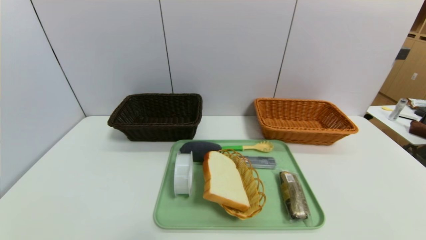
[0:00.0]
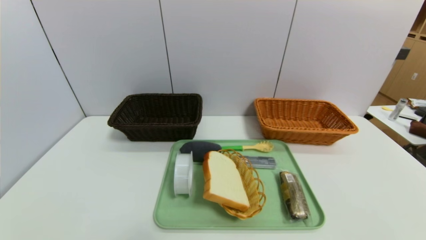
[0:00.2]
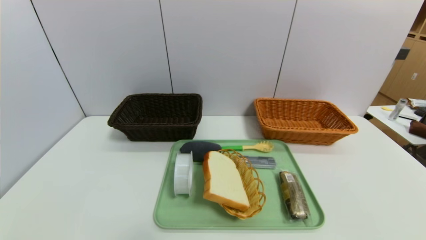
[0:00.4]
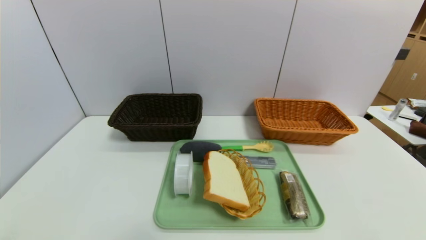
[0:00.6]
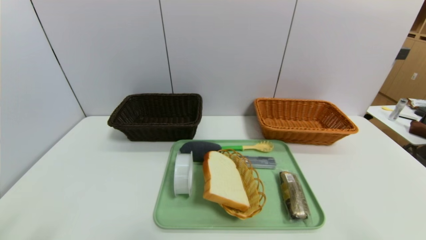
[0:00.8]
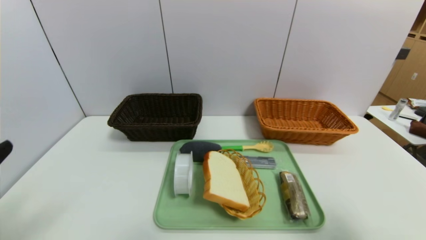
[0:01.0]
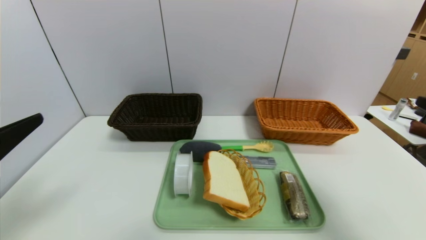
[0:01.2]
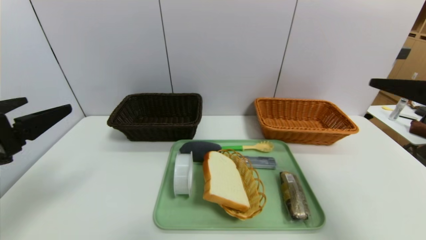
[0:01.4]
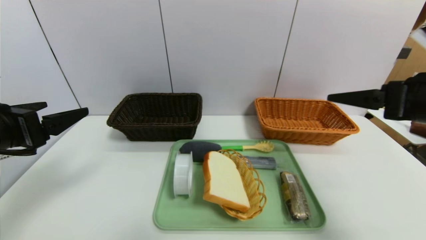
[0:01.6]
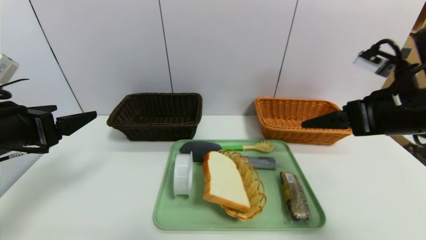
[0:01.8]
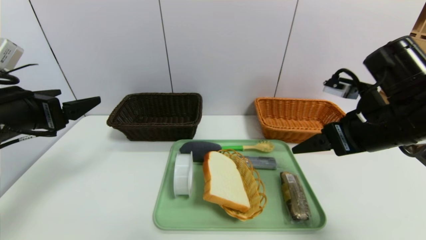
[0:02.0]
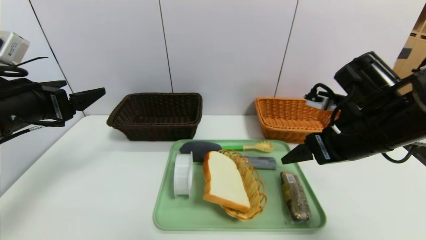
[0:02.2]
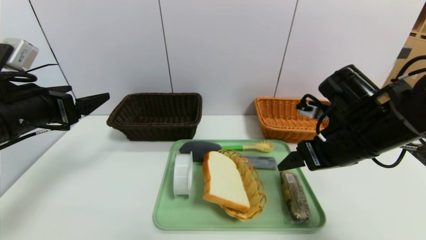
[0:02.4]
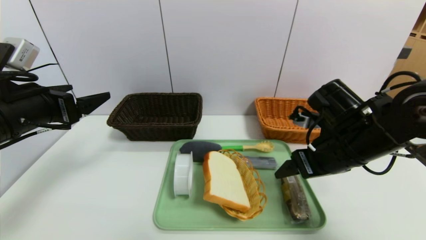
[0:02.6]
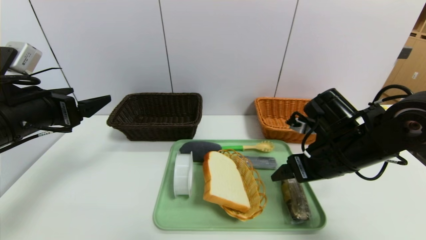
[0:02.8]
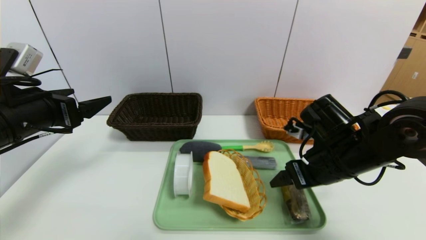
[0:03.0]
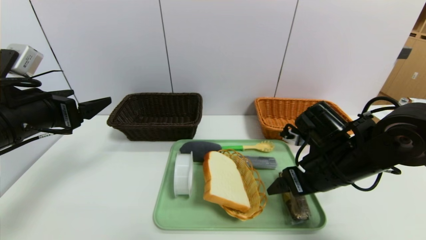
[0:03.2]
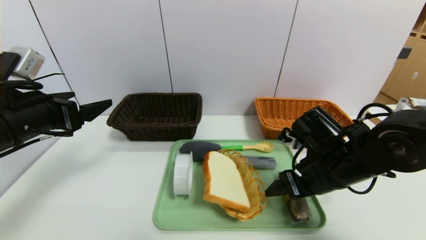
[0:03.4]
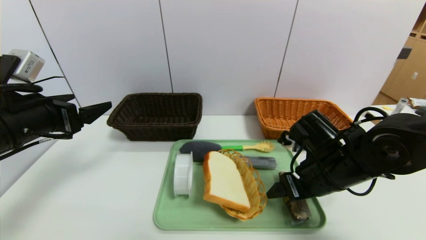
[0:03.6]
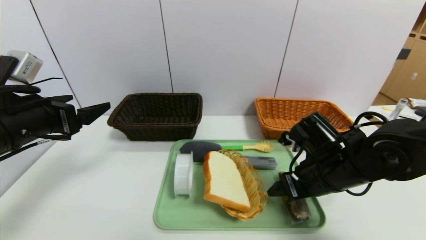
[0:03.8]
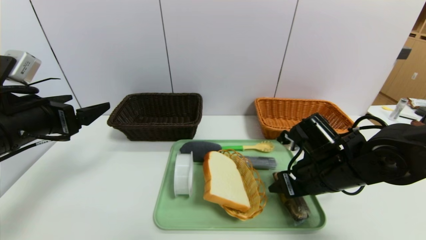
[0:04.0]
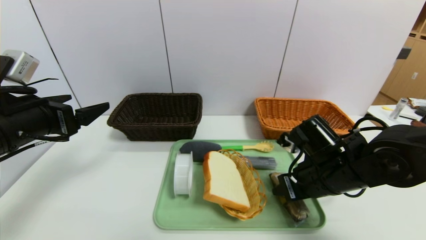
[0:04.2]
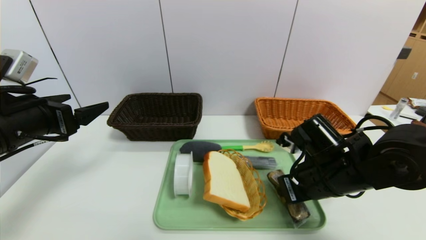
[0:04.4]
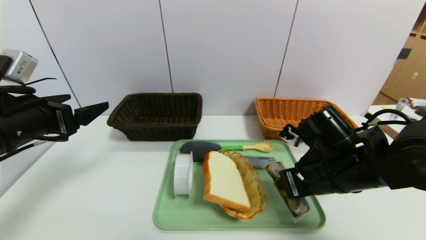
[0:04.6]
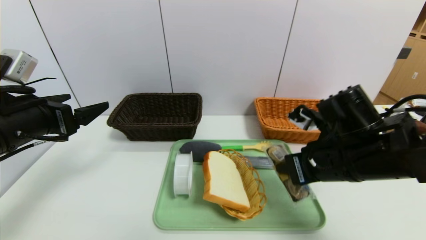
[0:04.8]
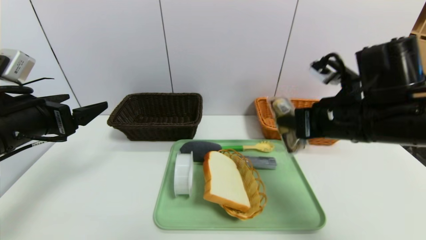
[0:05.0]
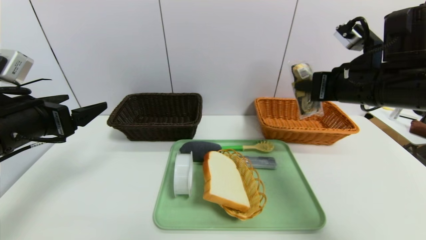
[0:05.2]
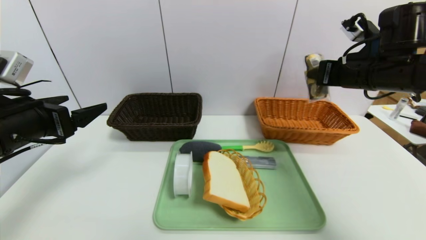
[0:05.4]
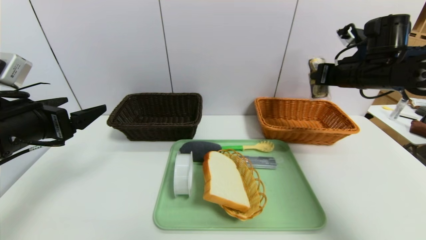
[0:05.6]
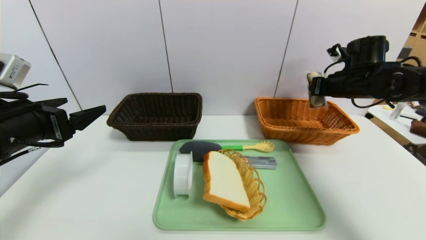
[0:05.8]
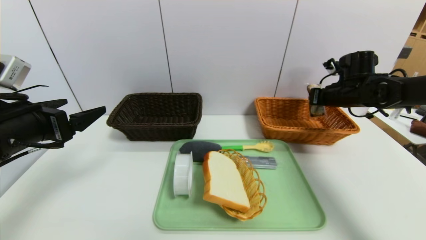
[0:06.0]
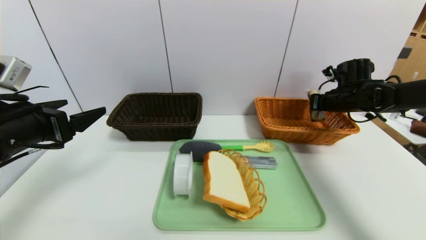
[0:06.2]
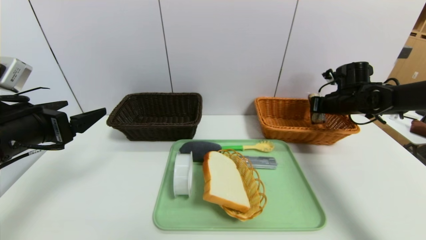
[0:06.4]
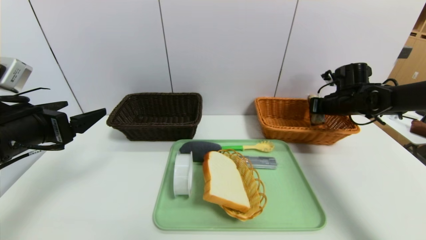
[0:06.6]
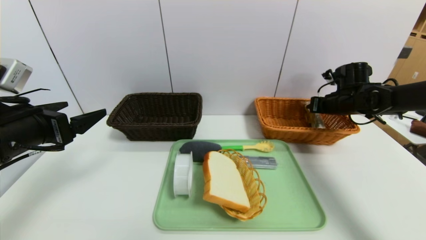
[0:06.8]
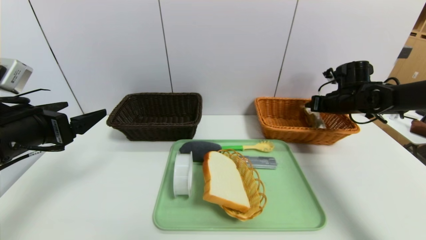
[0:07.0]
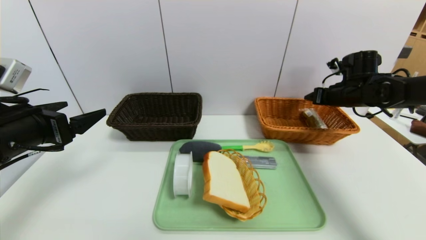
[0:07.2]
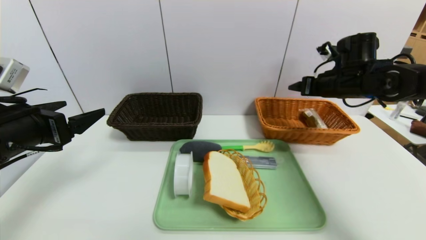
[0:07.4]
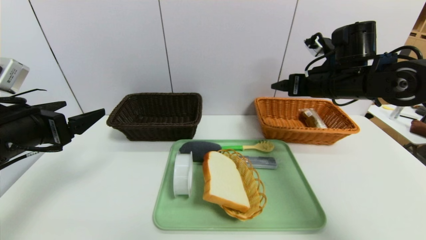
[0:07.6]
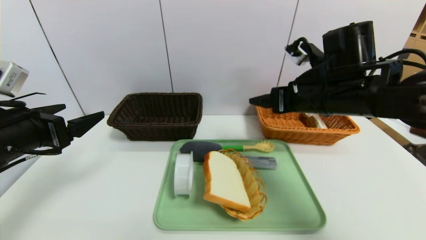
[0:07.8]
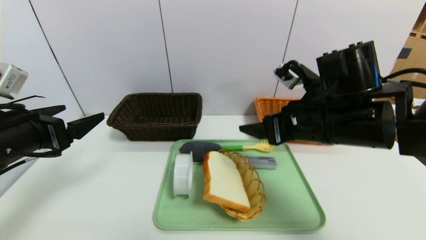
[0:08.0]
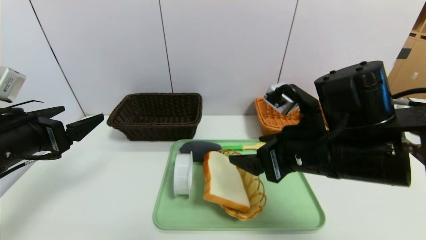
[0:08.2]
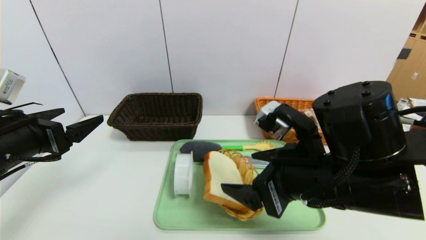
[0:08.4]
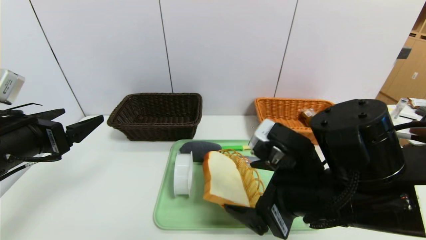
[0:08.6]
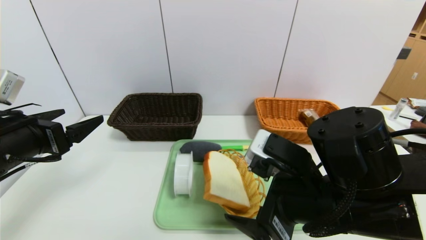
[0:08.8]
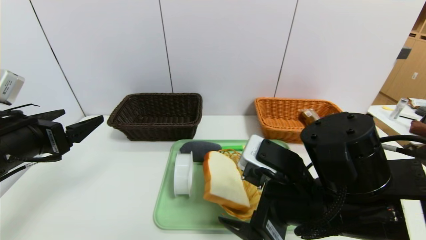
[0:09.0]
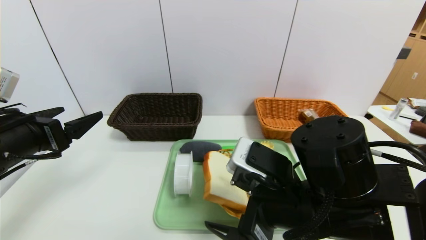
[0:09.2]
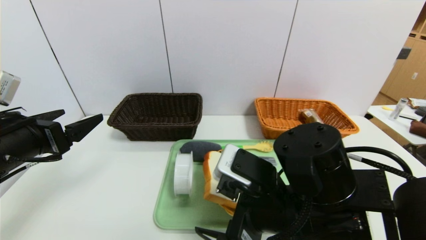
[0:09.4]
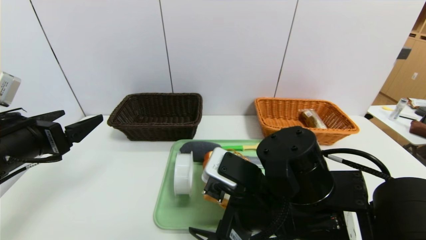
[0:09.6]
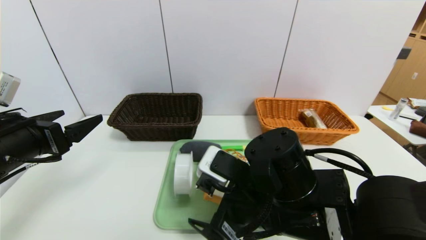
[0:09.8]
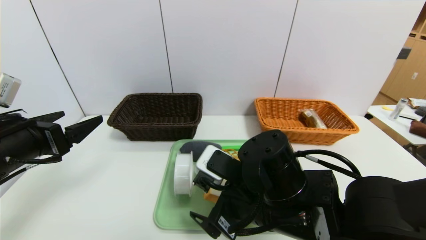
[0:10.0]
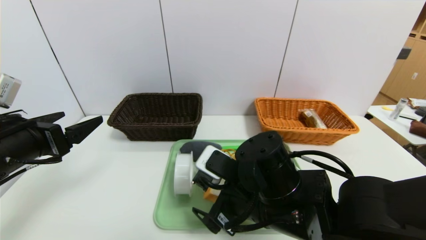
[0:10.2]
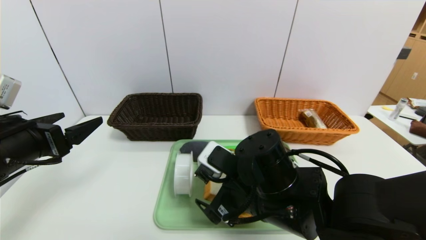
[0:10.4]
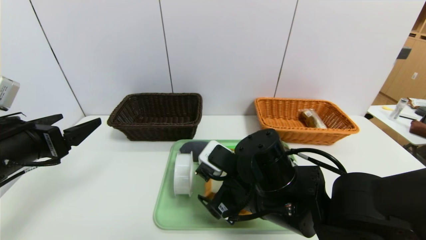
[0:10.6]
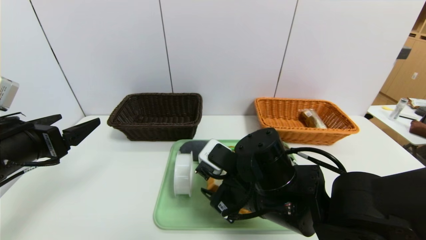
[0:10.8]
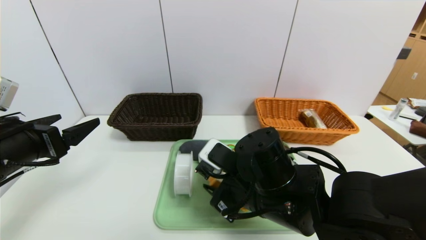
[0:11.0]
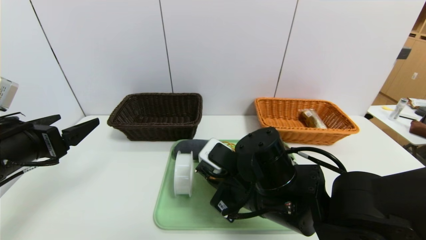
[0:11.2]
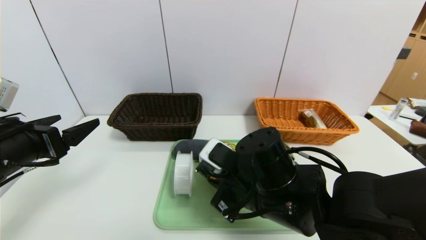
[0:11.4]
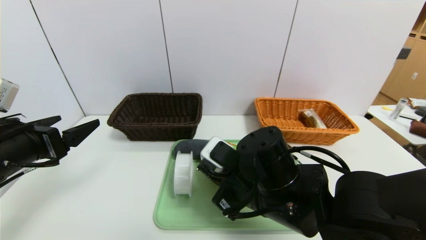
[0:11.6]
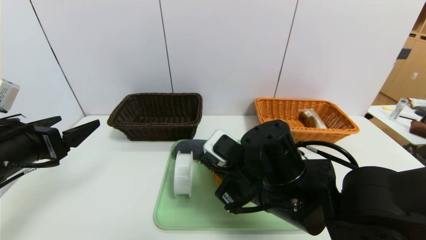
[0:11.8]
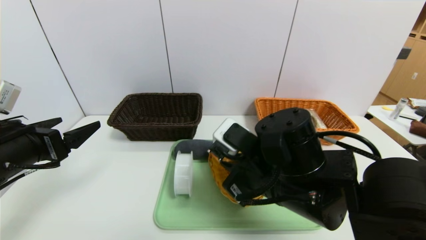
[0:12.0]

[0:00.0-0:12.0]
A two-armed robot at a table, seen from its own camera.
Task of the whole recording: place the food in the right basket with the right gripper, and place the non food items in the left basket with the left gripper.
Step, 0:00.0 to 0:07.0: Grasp the chocolate and put it in the right basket.
0:00.0 to 0:01.6: Both grippers travel together upward and forward, some 30 cm.
0:01.6 to 0:03.0: The left gripper goes roughly 5 cm forward, while the right gripper shifts approximately 15 cm downward, to the left and forward.
0:03.0 to 0:04.4: The right gripper closes.
0:04.4 to 0:06.0: The right gripper goes roughly 25 cm forward and to the right.
0:06.0 to 0:07.6: The right gripper heads to the left, backward and upward, covering some 15 cm, and opens up.
0:07.6 to 0:09.0: The right gripper is displaced backward and to the left by approximately 20 cm.
0:09.0 to 0:10.4: The right gripper shifts about 5 cm to the left.
0:10.4 to 0:12.0: The right gripper closes its fingers.

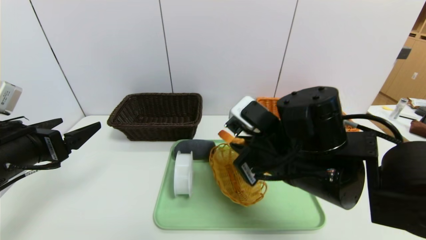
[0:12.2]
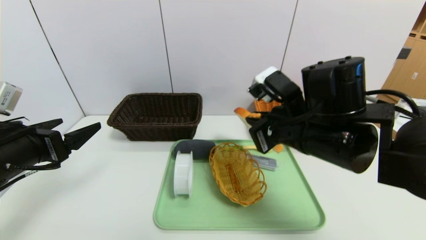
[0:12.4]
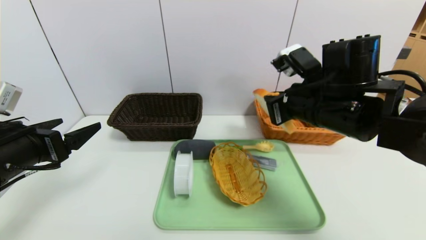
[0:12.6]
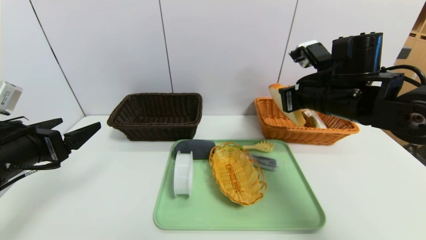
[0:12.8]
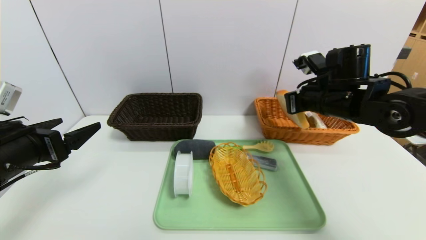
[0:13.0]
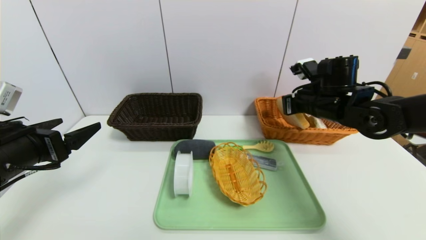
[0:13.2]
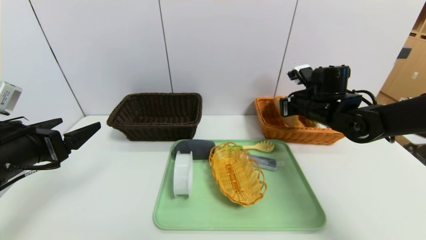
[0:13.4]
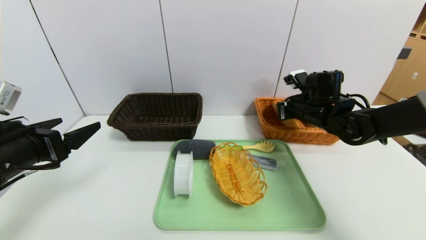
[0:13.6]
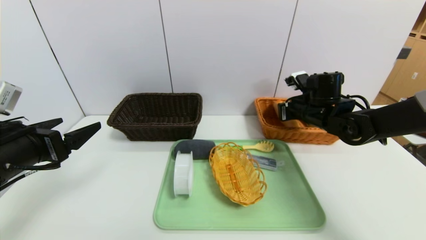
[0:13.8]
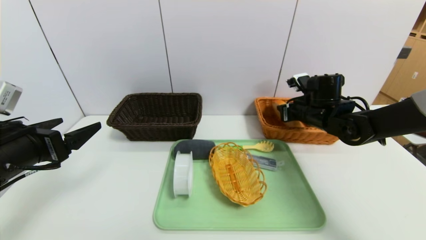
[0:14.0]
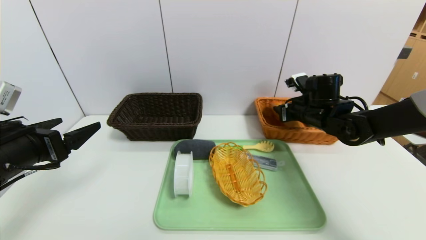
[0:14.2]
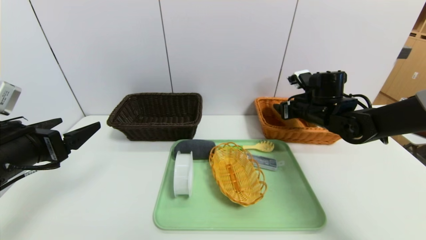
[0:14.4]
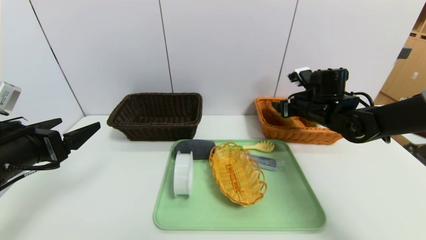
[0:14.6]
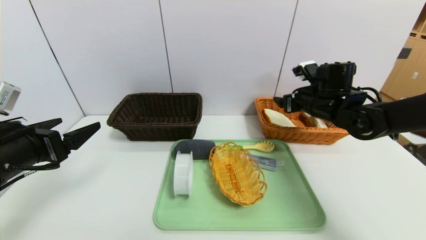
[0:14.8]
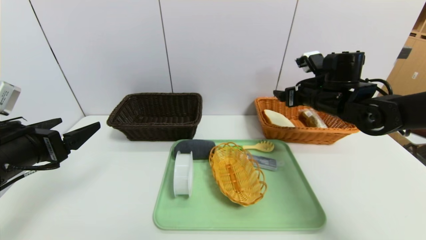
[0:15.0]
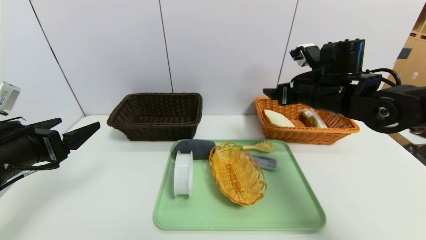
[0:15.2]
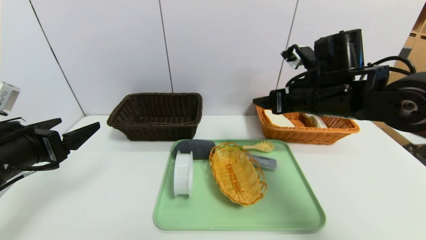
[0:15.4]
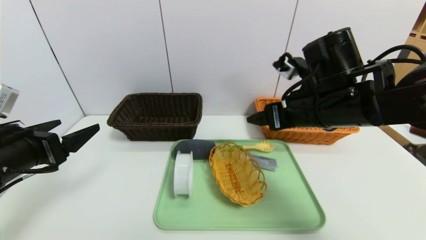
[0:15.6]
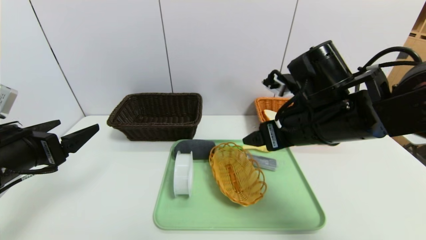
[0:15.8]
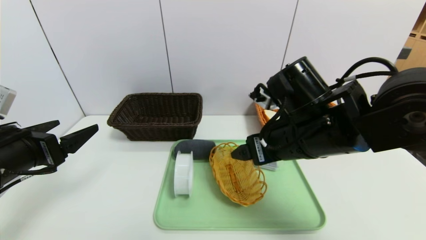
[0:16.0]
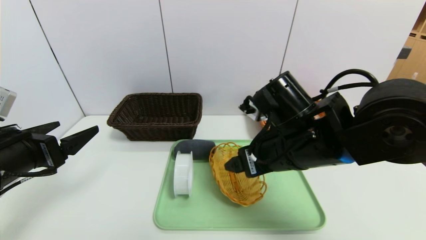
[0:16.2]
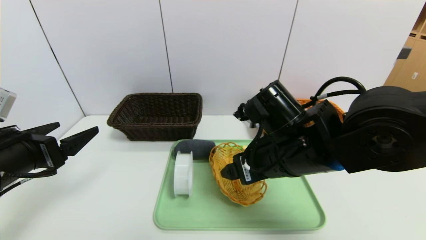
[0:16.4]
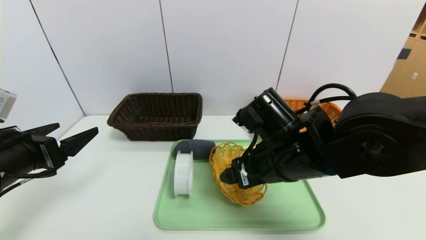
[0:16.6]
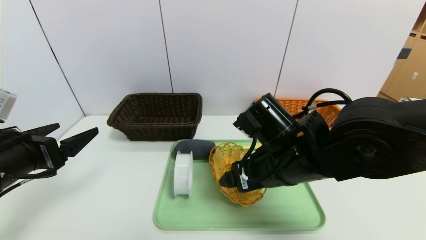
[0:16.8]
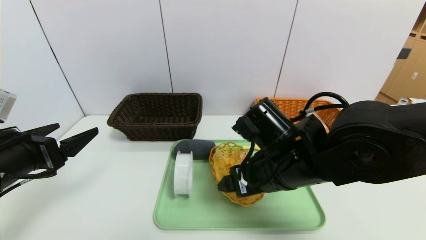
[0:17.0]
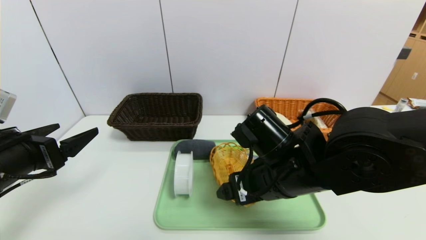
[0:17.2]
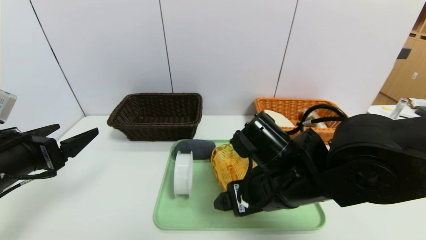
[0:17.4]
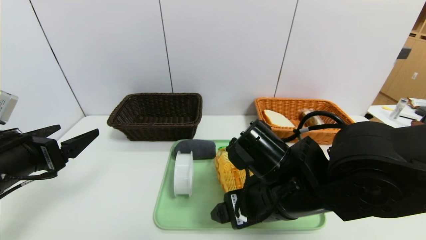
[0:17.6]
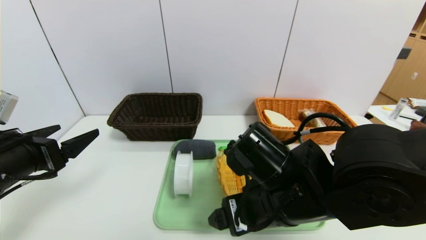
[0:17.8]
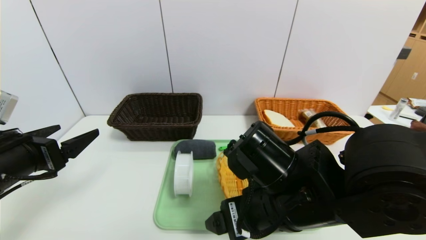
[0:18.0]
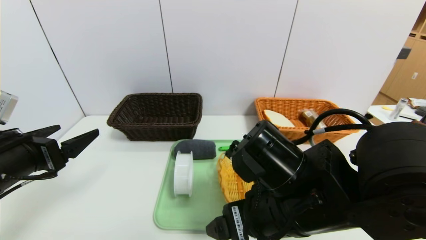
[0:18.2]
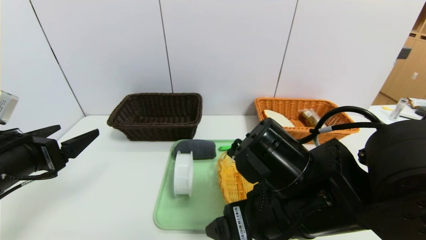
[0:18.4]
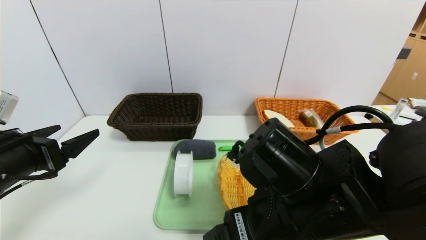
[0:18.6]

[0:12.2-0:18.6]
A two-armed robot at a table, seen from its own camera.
Task of the whole recording: place the food in the right basket with the right gripper, and place the non food items in the left basket with the left gripper.
Step, 0:12.2 to 0:15.2: Grasp the bread slice and put it in the right basket.
0:12.2 to 0:13.8: The right gripper goes approximately 20 cm forward and to the right.
0:13.8 to 0:15.4: The right gripper shifts roughly 15 cm backward, upward and to the left, and opens.
0:15.4 to 0:17.0: The right gripper heads to the left, backward and downward, covering roughly 15 cm.
0:17.0 to 0:18.6: The right gripper heads backward, covering some 5 cm.
